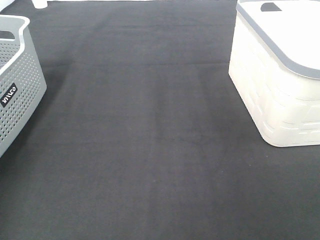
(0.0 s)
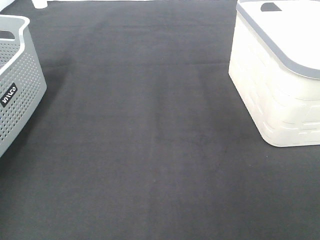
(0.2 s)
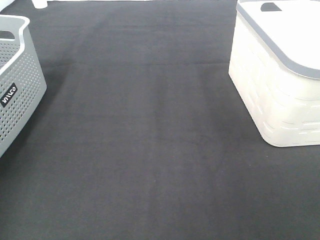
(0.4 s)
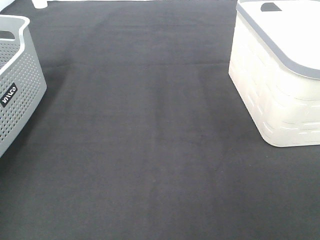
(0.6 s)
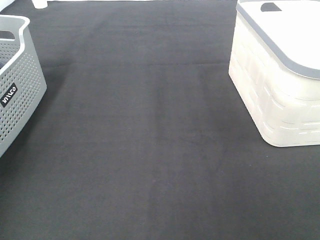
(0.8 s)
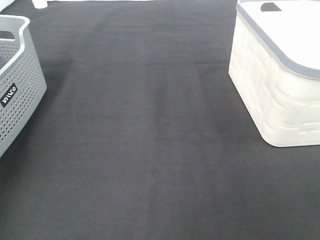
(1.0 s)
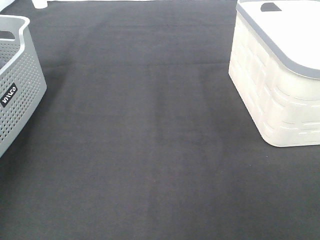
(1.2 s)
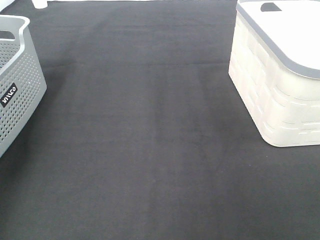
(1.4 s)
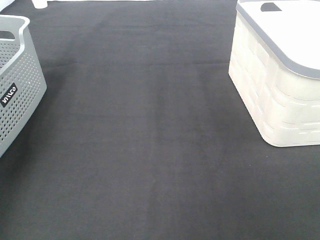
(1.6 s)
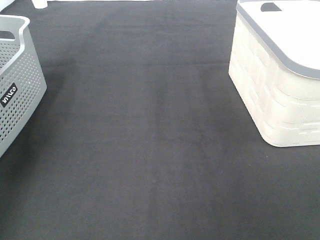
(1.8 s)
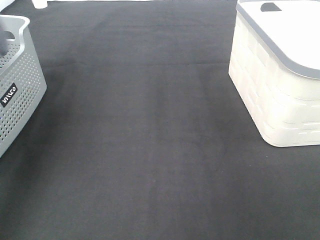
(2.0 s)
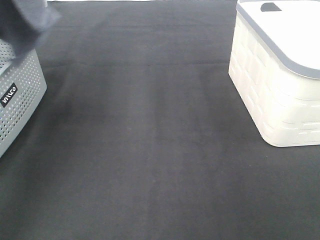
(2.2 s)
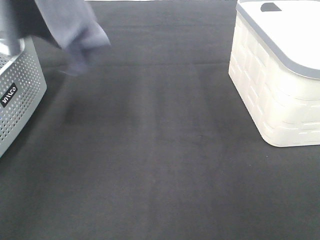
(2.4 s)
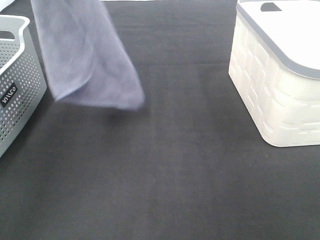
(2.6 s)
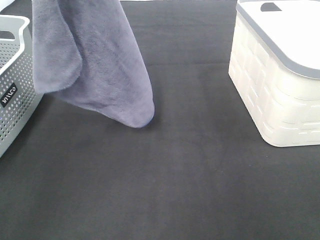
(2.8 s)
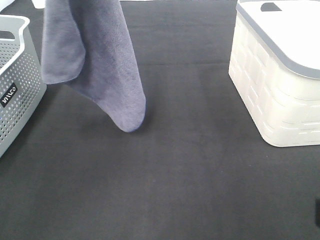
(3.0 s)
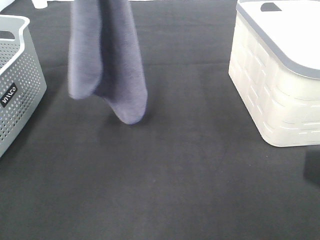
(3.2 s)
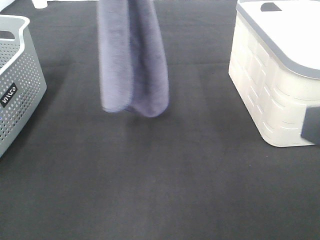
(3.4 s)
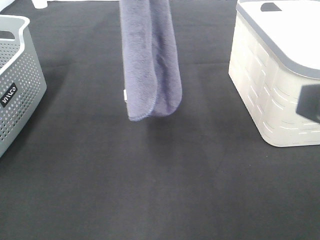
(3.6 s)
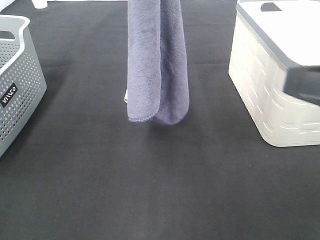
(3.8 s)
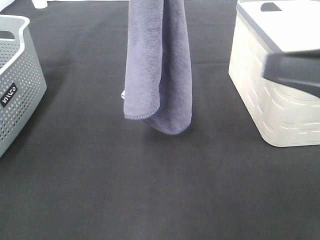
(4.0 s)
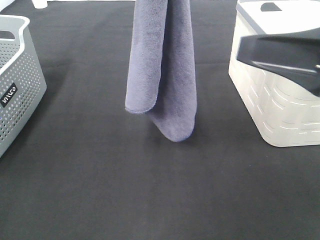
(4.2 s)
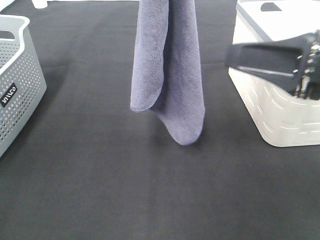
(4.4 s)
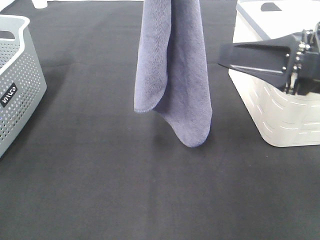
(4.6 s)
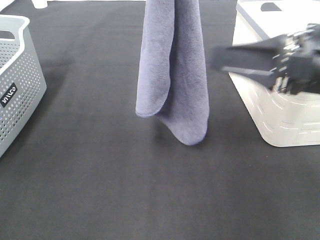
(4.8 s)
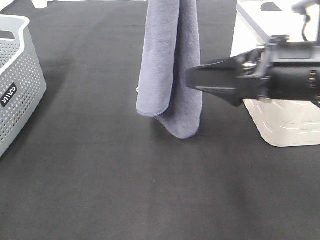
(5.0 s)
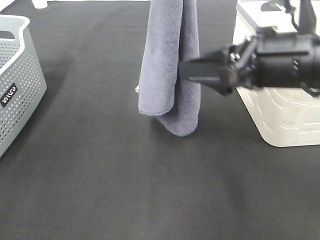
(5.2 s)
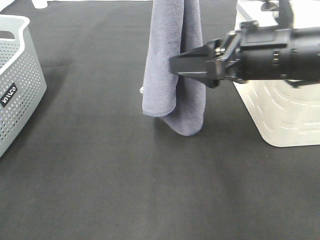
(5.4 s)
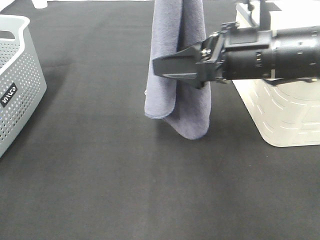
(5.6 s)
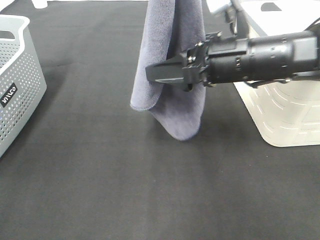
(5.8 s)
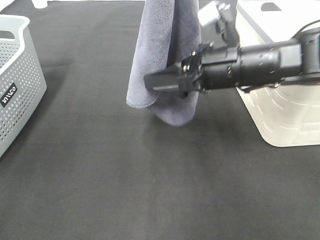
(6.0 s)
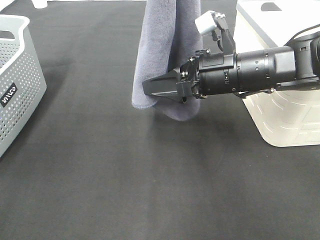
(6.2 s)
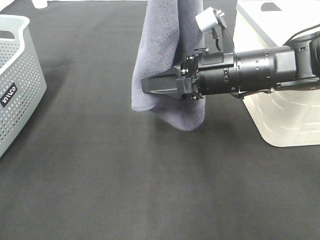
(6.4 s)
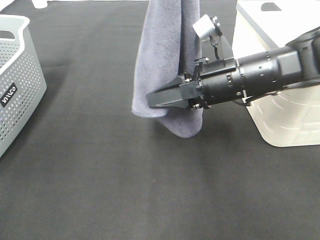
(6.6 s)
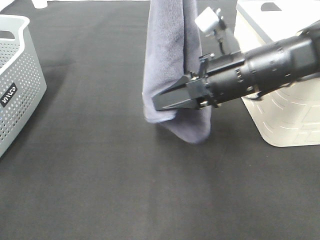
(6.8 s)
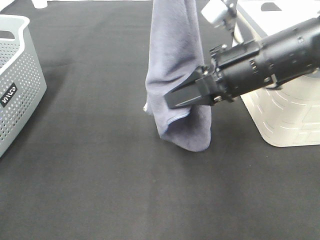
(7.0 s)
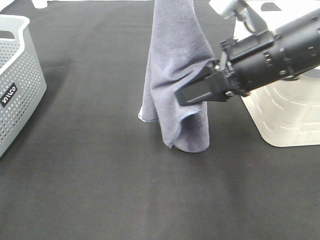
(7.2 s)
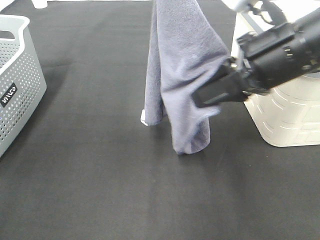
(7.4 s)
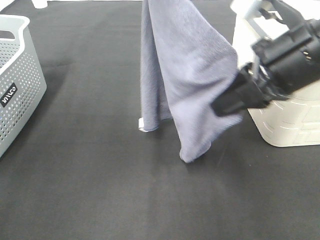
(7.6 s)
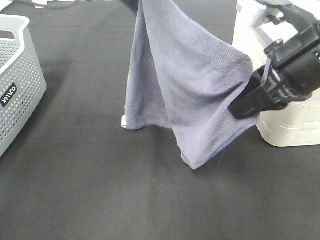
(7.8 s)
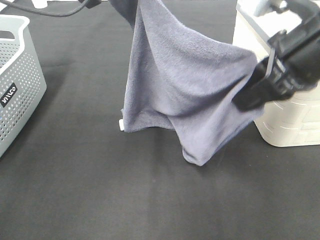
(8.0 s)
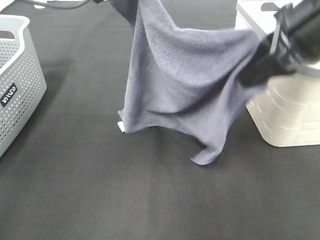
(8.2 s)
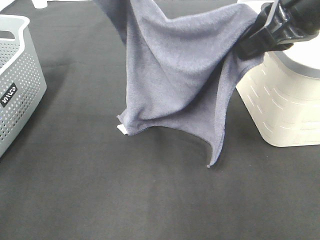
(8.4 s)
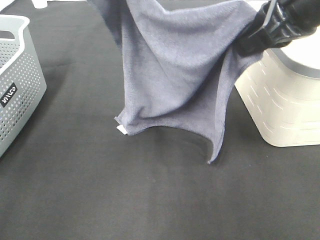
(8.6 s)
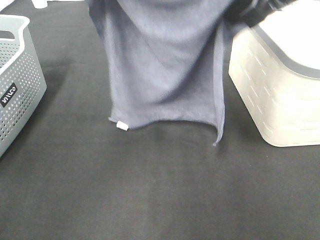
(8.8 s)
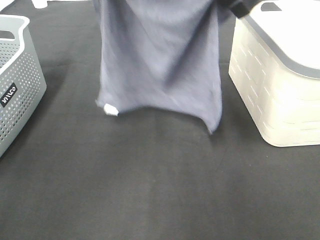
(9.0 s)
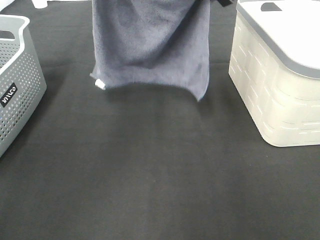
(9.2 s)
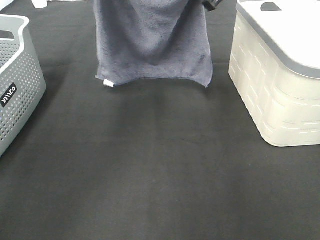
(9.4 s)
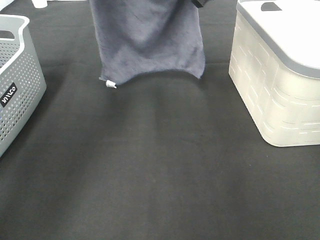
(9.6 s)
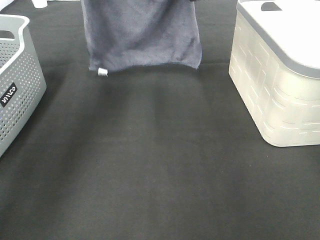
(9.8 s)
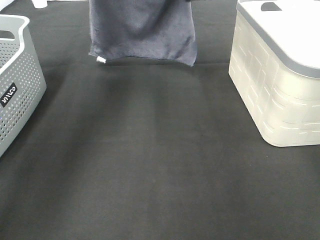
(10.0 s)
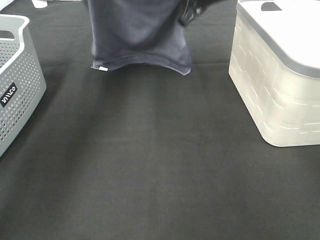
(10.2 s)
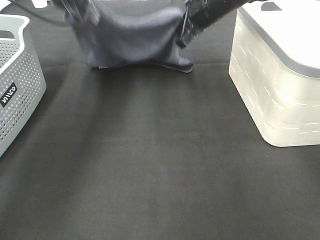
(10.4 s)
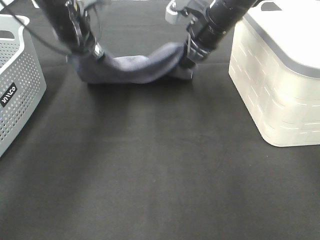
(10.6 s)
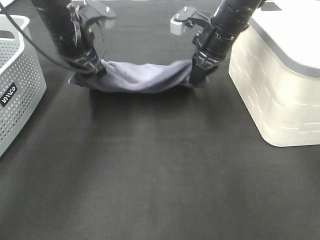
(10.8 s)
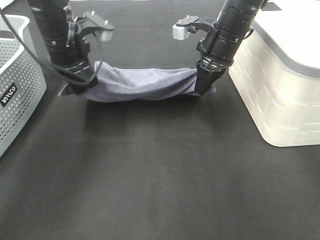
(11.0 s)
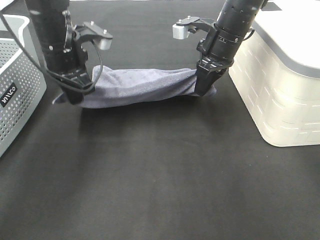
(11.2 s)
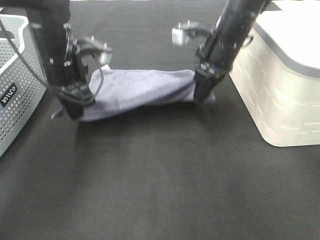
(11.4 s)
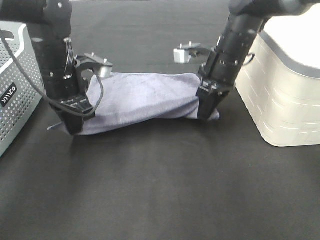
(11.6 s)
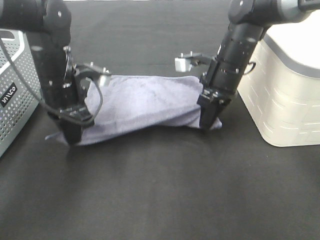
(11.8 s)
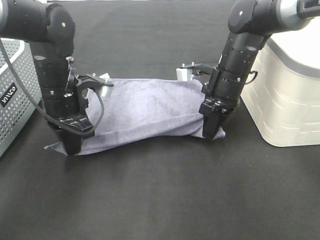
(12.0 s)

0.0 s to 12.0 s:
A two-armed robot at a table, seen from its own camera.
Task of the whole recording: Remove the towel and place it.
Step, 1.6 to 5.8 s: Right hand: grab a corner of the grey towel and straighten it.
Step, 6.0 to 8.6 s: Right hand: spread the grey towel flat on the table.
Step, 6.0 to 9.2 s: Left hand: spread the grey towel flat on the table.
1.6 to 3.0 s: The left gripper heads to the right, covering some 20 cm; the right gripper moves approximately 5 cm.
3.0 to 4.4 s: The right gripper goes about 15 cm forward. Meanwhile the left gripper travels to the right by approximately 10 cm.
4.4 to 6.0 s: The right gripper shifts roughly 15 cm forward, to the left and downward.
6.0 to 7.6 s: The right gripper heads upward and backward, covering approximately 10 cm, and closes up; the left gripper changes place by some 5 cm.
7.6 to 9.0 s: The right gripper goes roughly 15 cm forward and upward.
9.0 to 10.4 s: The right gripper heads forward and downward, covering roughly 20 cm, while the left gripper travels downward and forward by approximately 15 cm.
10.4 to 12.0 s: The two grippers go roughly 15 cm backward and downward.

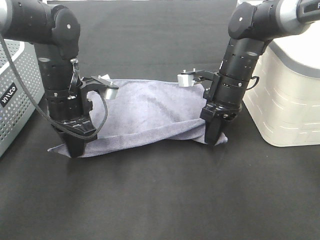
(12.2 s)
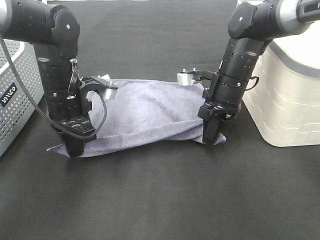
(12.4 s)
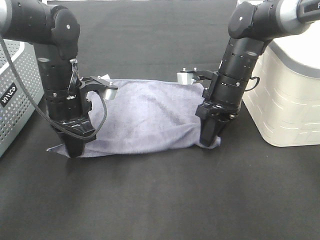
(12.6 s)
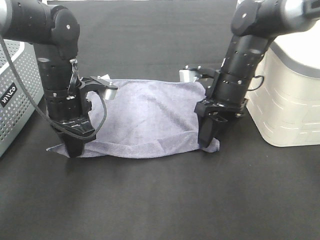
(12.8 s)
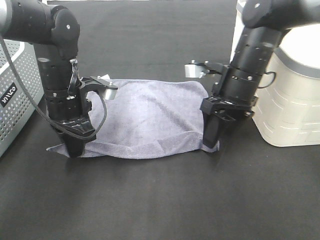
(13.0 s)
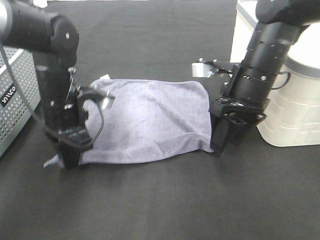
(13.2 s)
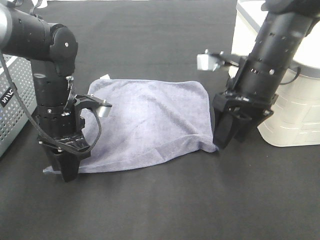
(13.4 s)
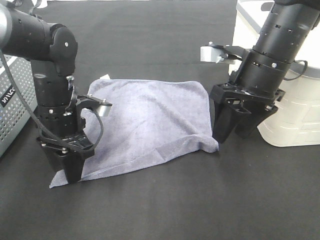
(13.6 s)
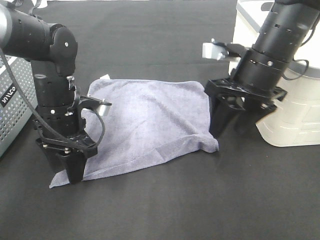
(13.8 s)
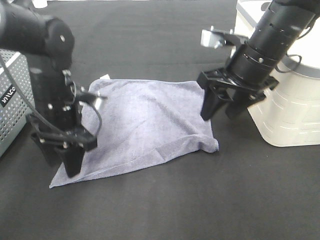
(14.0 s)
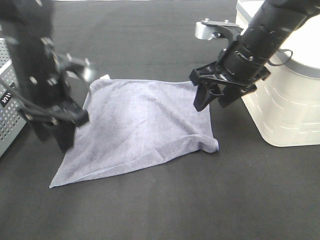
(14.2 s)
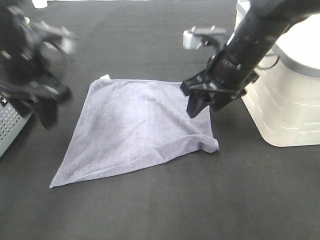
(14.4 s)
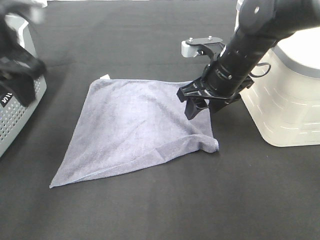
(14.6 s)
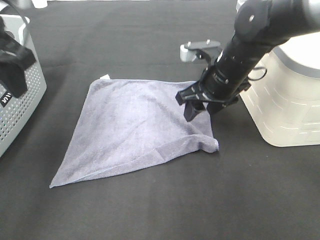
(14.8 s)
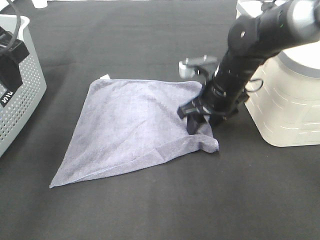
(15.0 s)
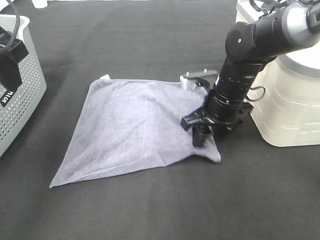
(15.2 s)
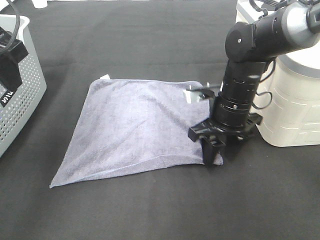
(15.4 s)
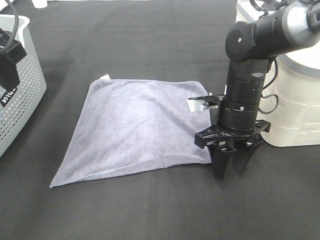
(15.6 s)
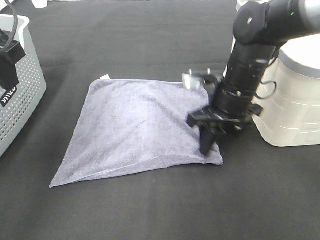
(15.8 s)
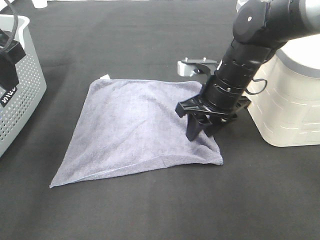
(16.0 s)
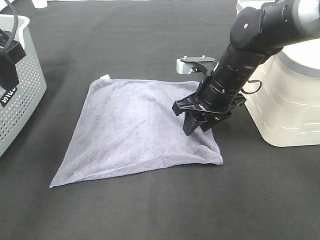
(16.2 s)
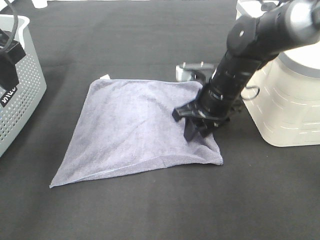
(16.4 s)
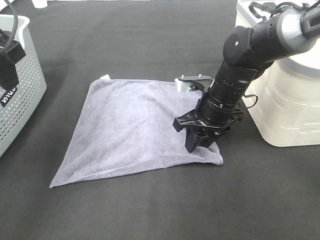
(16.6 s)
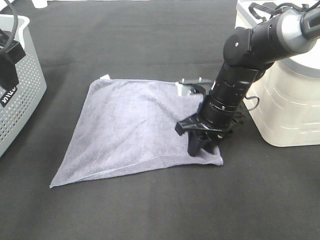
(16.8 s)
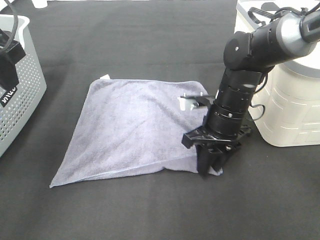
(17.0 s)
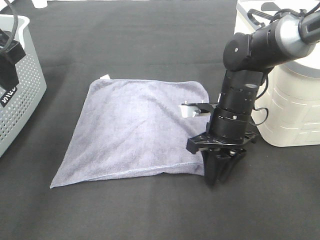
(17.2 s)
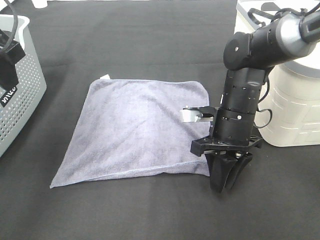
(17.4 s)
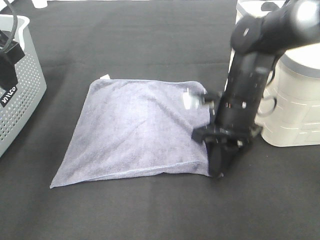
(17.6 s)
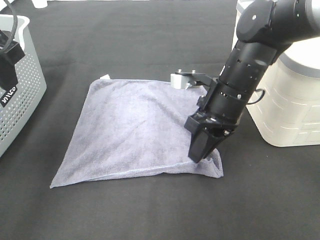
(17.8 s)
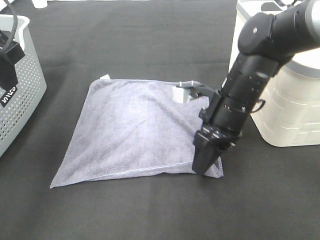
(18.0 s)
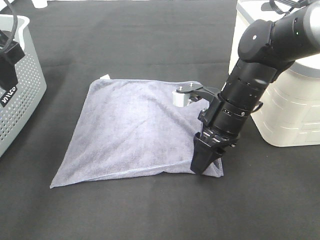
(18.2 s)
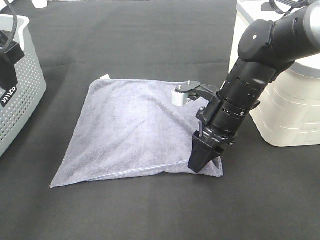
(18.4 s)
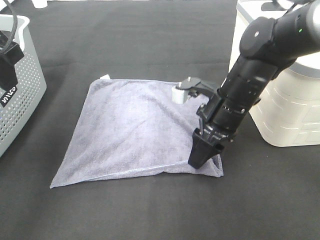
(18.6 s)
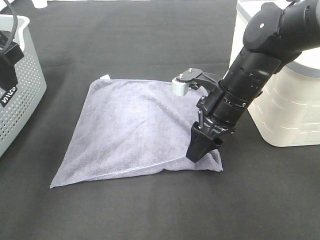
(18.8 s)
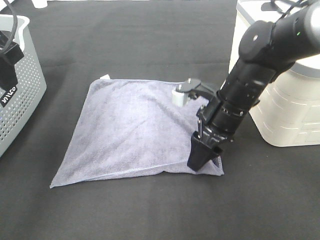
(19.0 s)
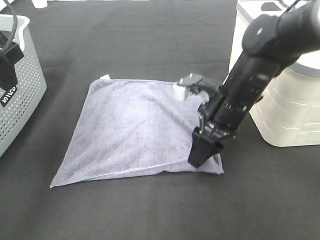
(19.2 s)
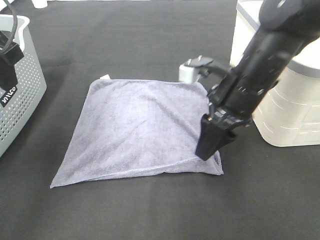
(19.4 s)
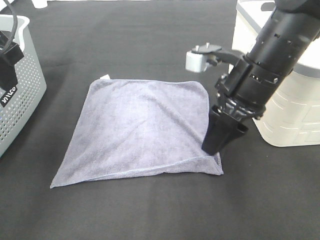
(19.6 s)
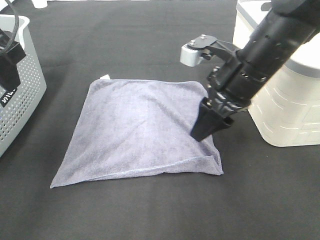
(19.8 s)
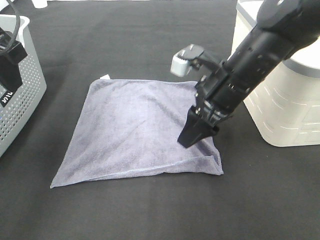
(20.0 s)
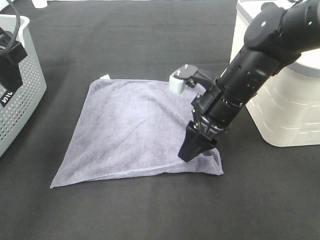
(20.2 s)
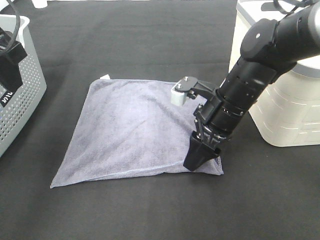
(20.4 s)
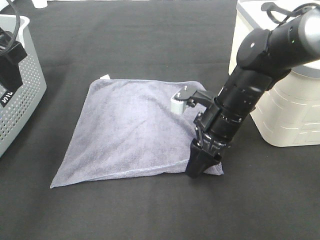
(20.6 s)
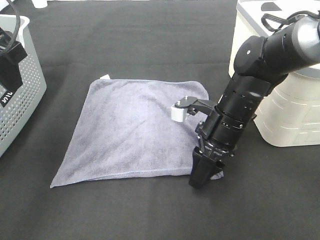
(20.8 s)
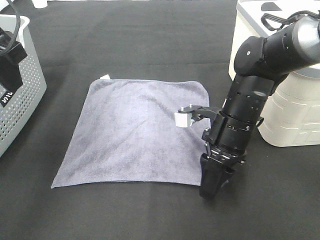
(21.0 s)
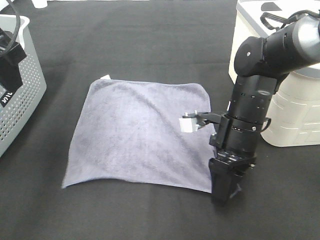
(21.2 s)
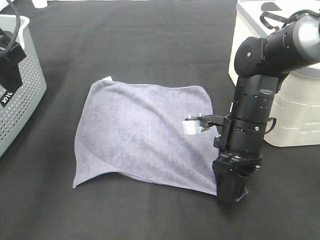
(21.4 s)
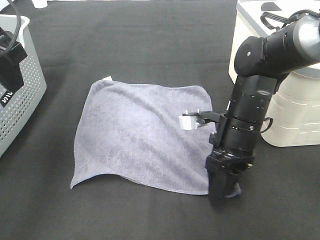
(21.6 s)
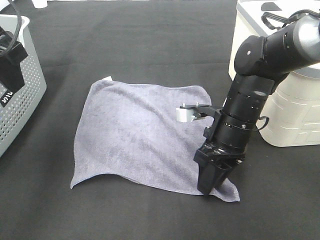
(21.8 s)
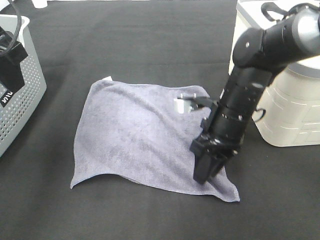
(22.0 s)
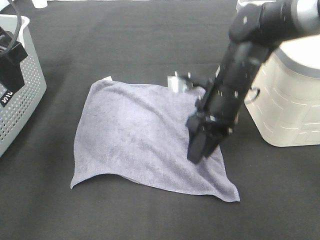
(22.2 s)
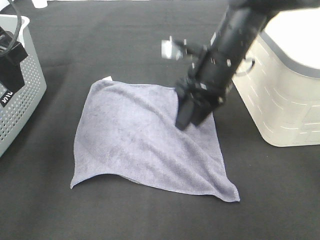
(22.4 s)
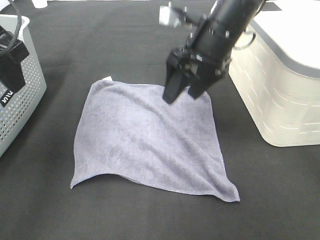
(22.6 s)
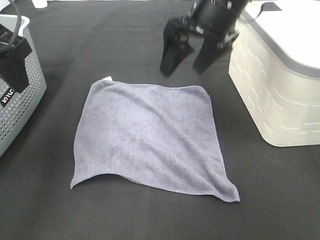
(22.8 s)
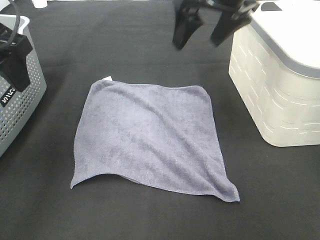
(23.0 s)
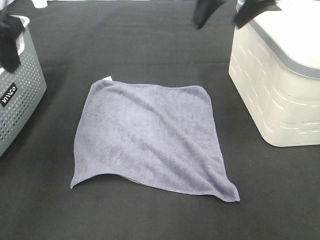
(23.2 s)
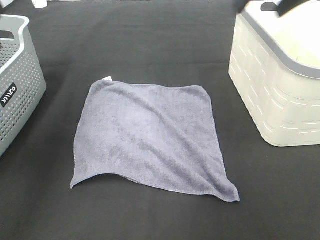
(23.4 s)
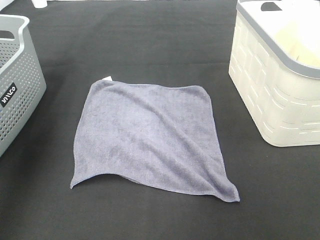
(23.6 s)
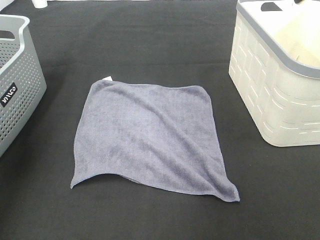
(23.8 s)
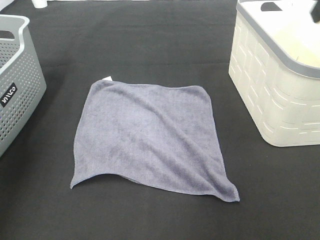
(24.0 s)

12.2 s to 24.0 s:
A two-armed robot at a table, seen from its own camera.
Task of the whole recording: Remove the towel and place it.
Step, 12.2 to 16.0 s: Right hand:adjust the gray towel.
12.2 to 13.6 s: The right gripper heads upward and backward, covering some 10 cm, and opens. The left gripper opens.
13.6 to 15.2 s: The left gripper goes some 20 cm upward, while the right gripper heads downward, covering some 10 cm.
15.2 to 16.6 s: The grippers make only small movements.
16.6 to 18.2 s: The right gripper moves approximately 5 cm.
18.2 to 19.6 s: The right gripper is displaced upward by roughly 10 cm.
19.6 to 21.0 s: The right gripper heads downward, covering roughly 10 cm.
21.0 to 22.6 s: The right gripper goes some 15 cm upward and forward.
22.6 to 24.0 s: The right gripper heads to the right, upward and backward, covering roughly 25 cm. Meanwhile the left gripper travels to the left, backward and upward by roughly 15 cm.
